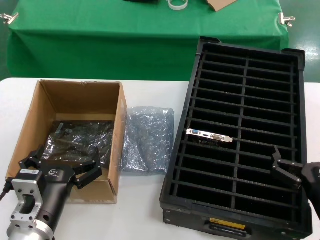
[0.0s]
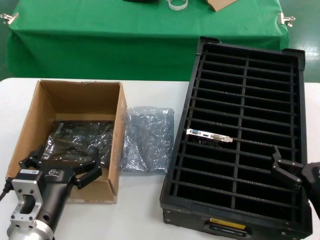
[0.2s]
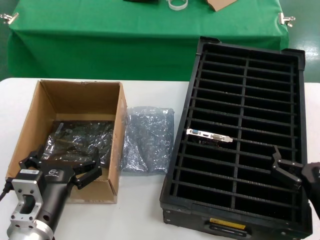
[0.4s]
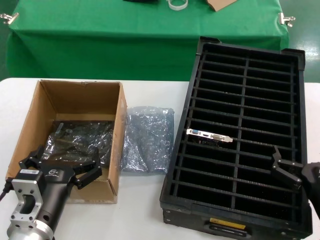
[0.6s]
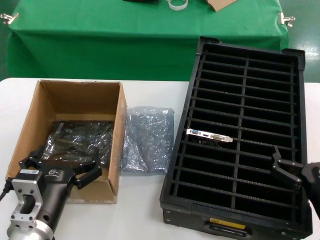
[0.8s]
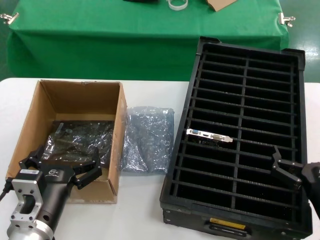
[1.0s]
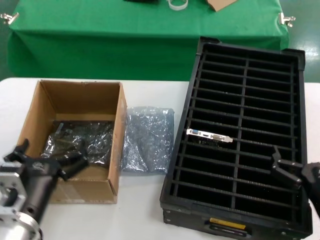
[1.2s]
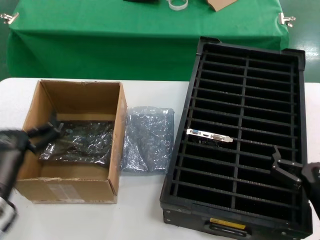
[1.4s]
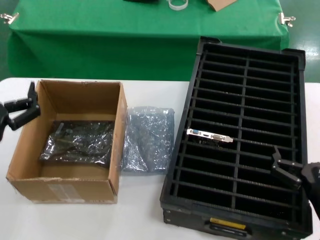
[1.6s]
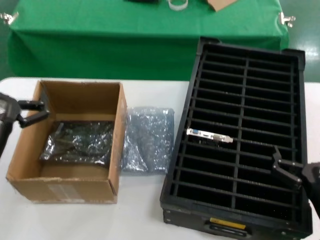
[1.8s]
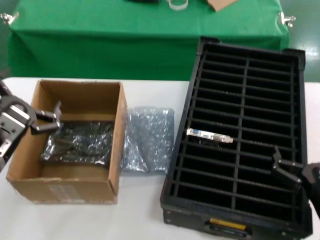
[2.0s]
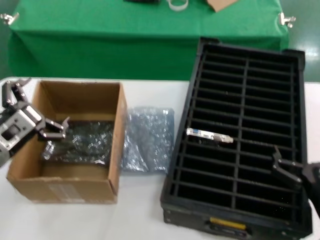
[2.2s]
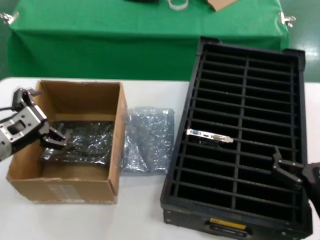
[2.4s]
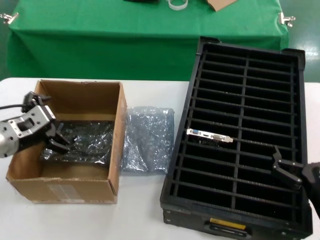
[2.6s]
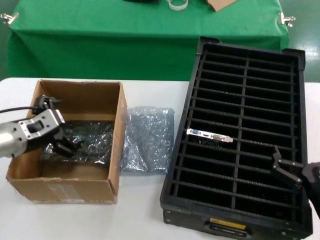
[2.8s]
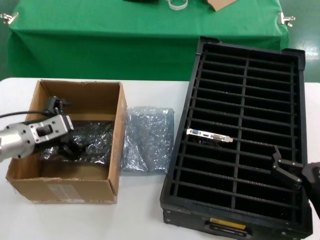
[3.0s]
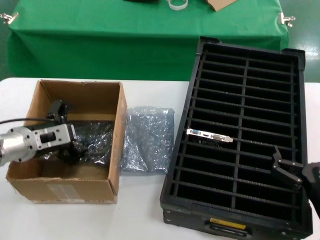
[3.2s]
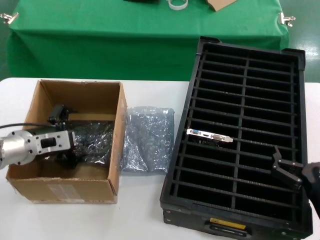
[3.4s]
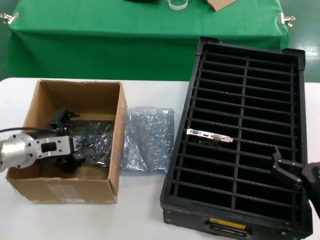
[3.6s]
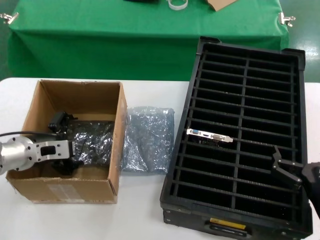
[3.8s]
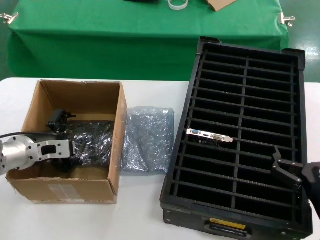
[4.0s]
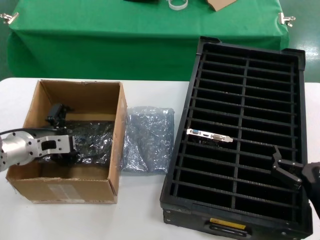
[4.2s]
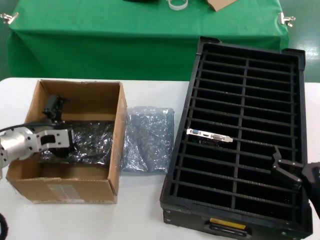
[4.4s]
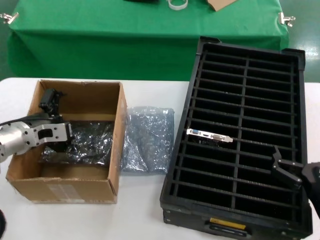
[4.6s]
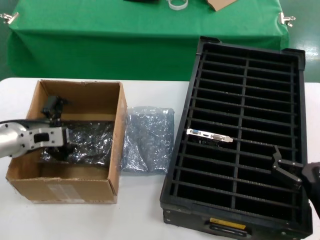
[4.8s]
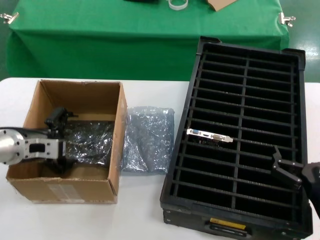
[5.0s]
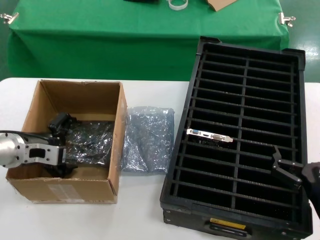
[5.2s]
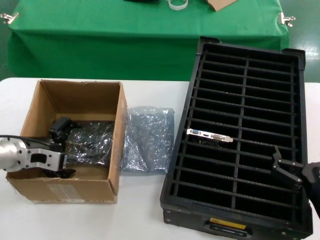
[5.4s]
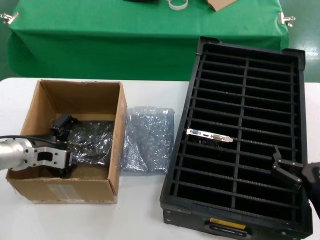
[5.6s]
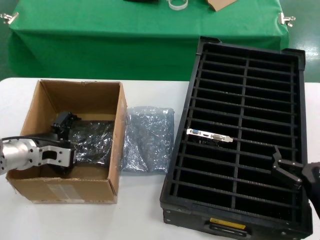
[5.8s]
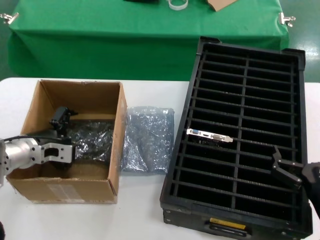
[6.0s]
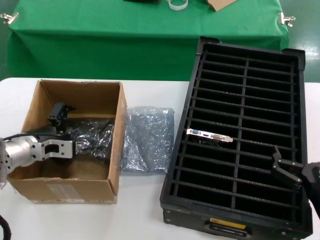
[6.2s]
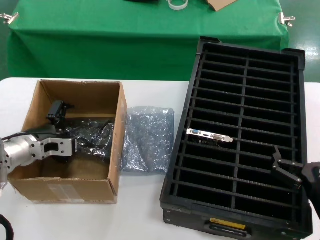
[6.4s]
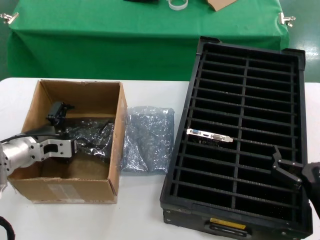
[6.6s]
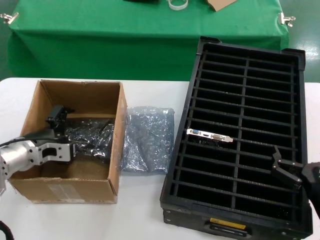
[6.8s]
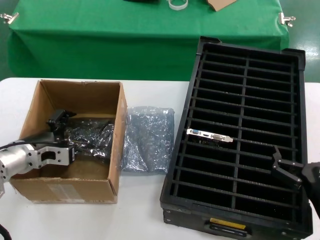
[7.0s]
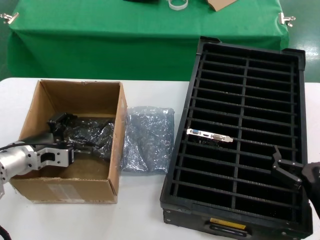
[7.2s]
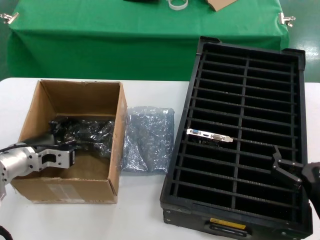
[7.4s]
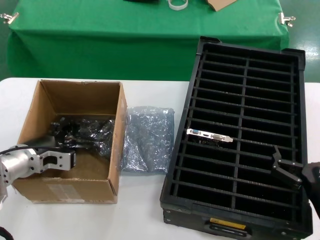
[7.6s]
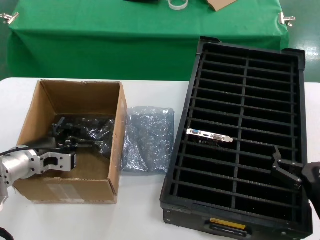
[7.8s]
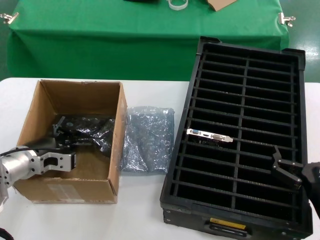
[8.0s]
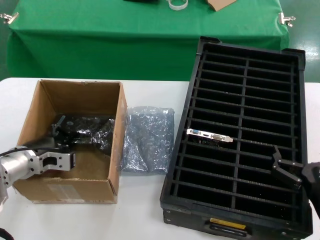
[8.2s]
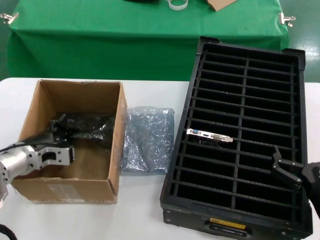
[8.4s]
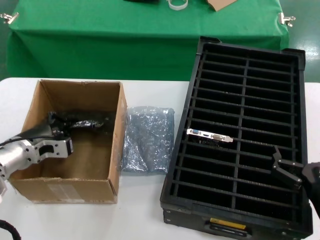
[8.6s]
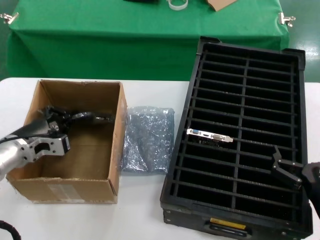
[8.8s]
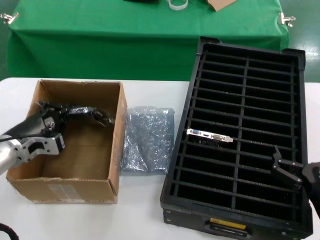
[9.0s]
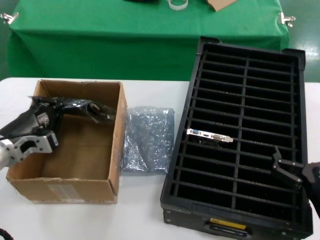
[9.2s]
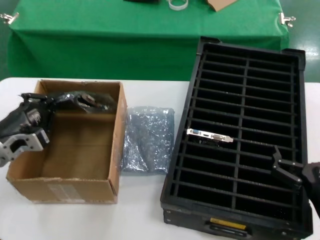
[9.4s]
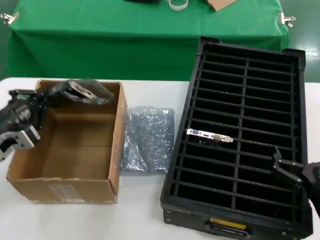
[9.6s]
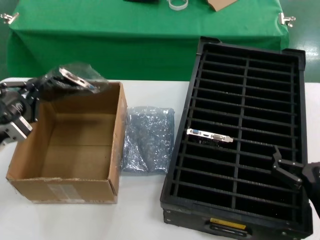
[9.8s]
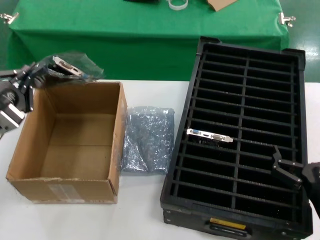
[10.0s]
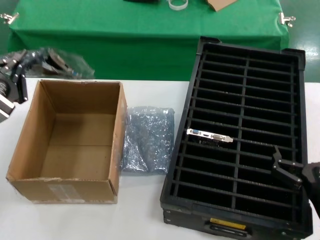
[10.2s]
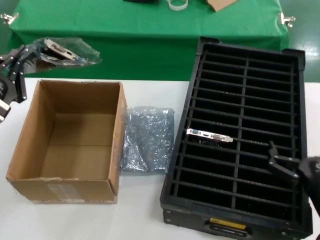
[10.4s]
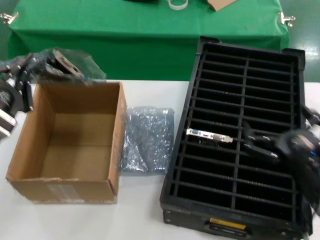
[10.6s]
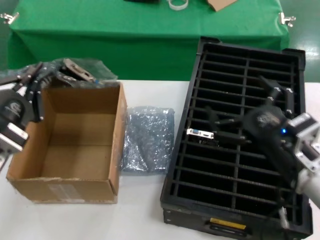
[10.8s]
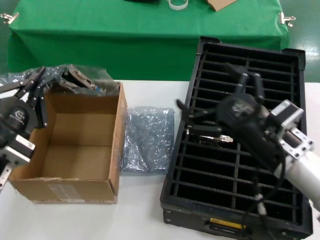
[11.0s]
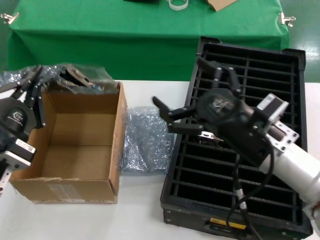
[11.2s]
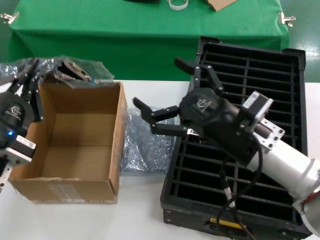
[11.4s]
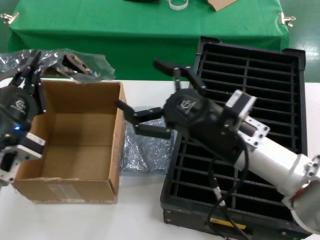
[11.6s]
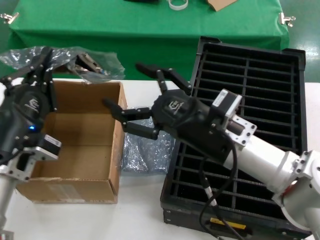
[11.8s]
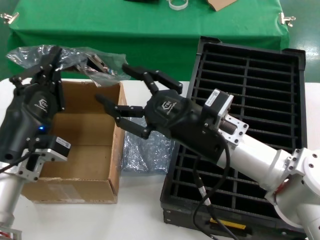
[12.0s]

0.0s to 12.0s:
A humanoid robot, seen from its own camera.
Task of the whole recording: take out graphics card from box remove packaging put into black container.
Step, 0.0s to 8.2s: Grasp the bag.
Step, 8.4s to 11.4s: Lift the bag.
0.0s to 1.6s: The left hand shifts some 10 cm upward and to the left.
1.6s to 3.0s: The left hand moves forward, approximately 20 cm.
3.0s to 4.4s: The hands move only a little.
4.4s to 9.0s: There are only small adjustments of the hands.
9.0s to 10.4s: The left hand moves backward and upward, roughly 15 cm.
10.4s to 12.0s: The right hand heads to the left, forward and upward, covering some 20 cm. Meanwhile the left hand travels to the right and downward by some 10 cm.

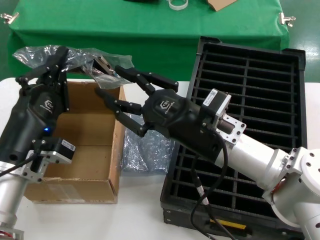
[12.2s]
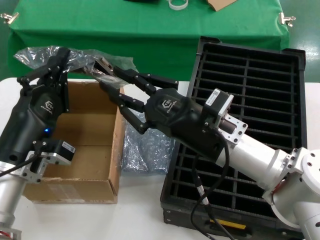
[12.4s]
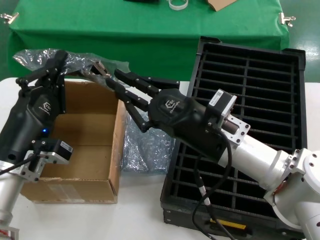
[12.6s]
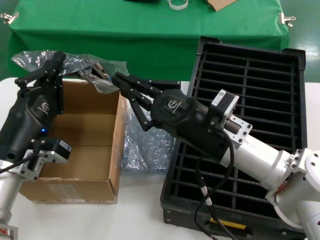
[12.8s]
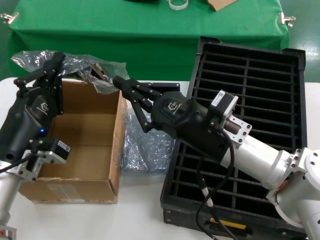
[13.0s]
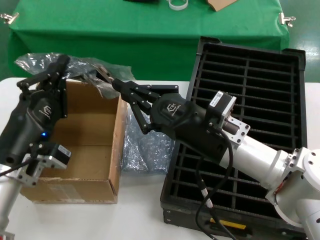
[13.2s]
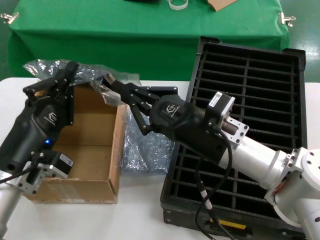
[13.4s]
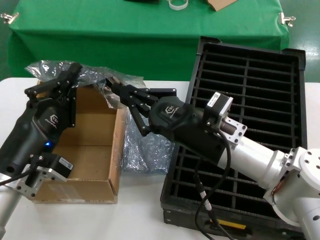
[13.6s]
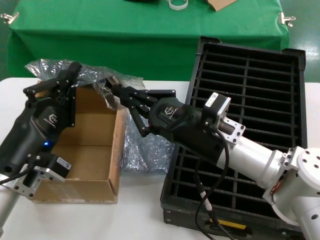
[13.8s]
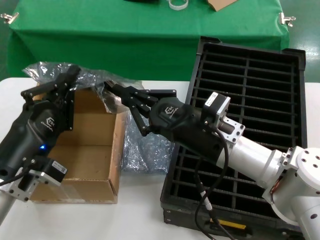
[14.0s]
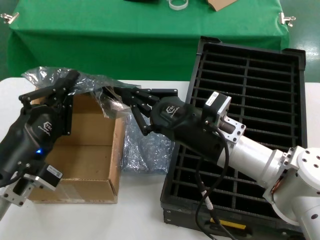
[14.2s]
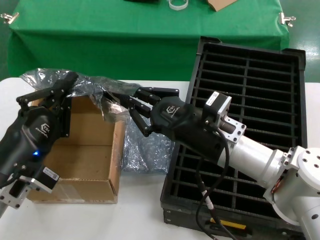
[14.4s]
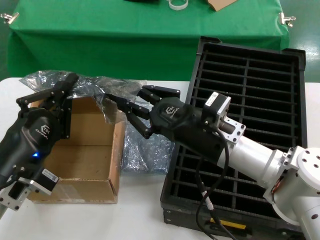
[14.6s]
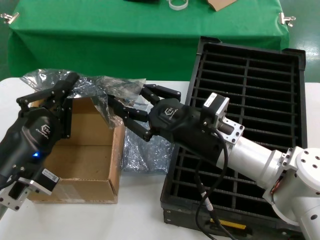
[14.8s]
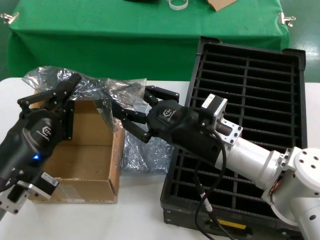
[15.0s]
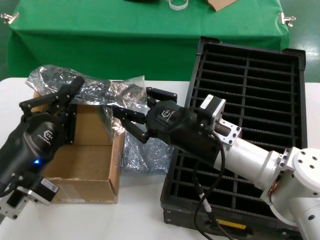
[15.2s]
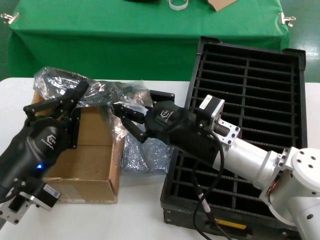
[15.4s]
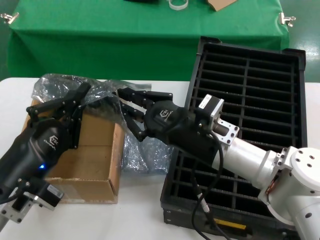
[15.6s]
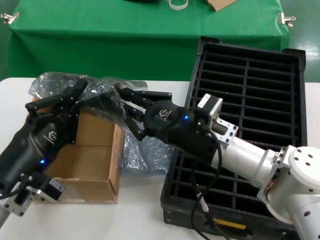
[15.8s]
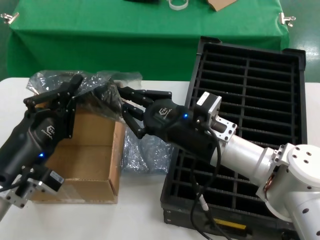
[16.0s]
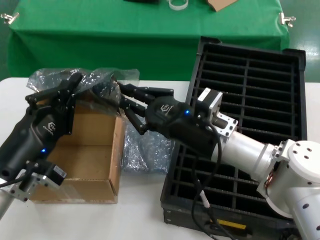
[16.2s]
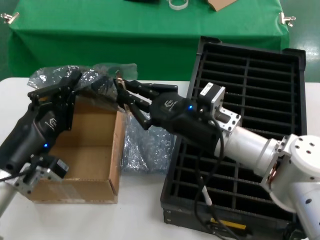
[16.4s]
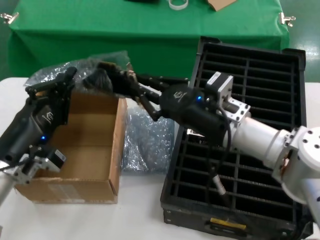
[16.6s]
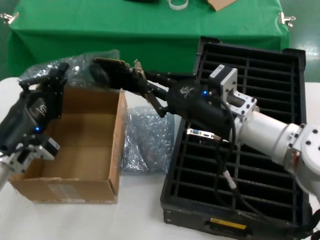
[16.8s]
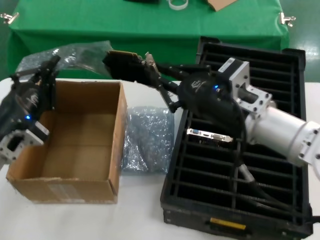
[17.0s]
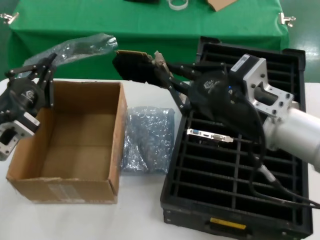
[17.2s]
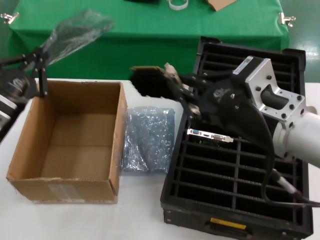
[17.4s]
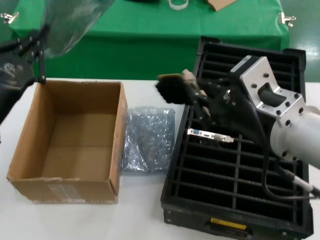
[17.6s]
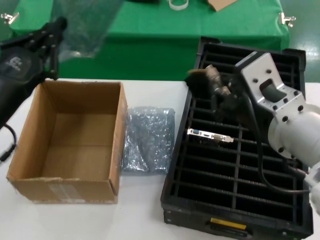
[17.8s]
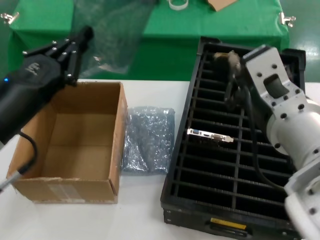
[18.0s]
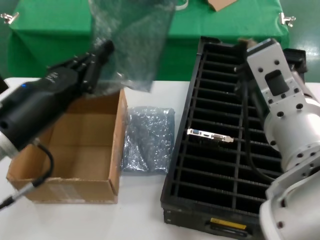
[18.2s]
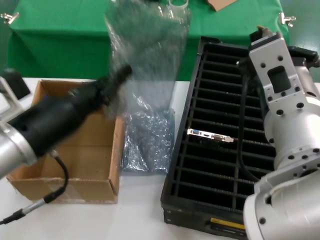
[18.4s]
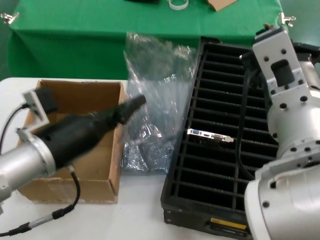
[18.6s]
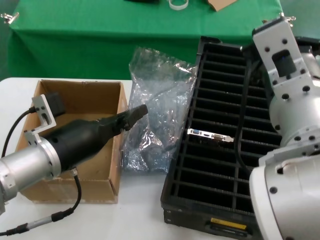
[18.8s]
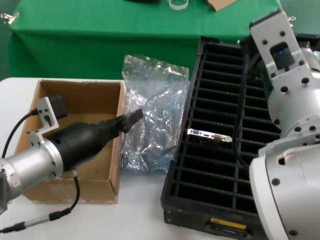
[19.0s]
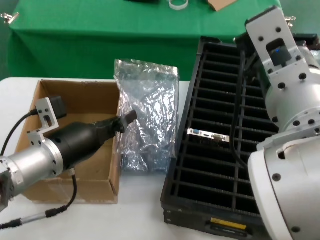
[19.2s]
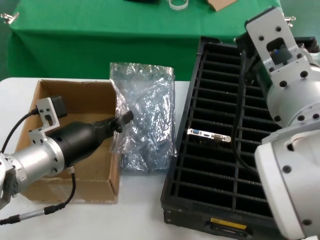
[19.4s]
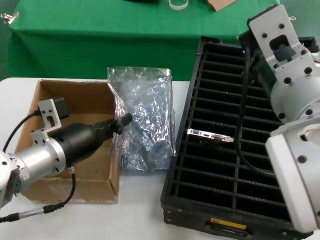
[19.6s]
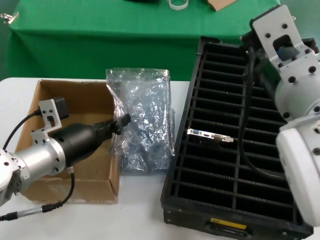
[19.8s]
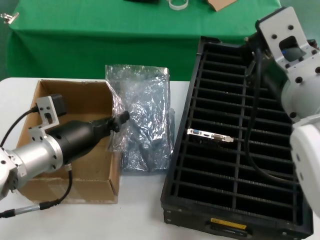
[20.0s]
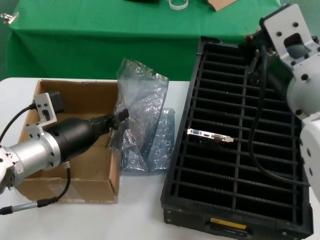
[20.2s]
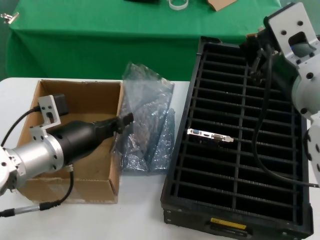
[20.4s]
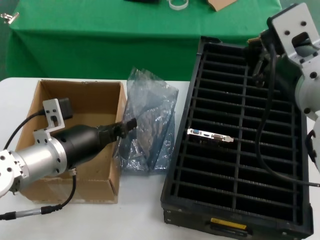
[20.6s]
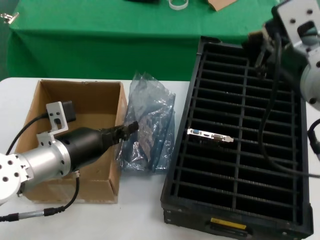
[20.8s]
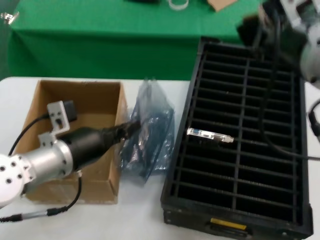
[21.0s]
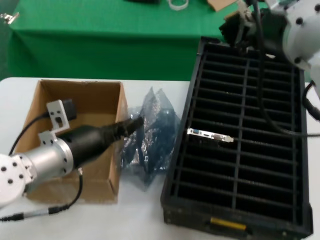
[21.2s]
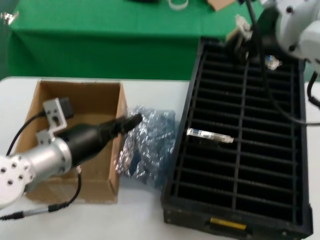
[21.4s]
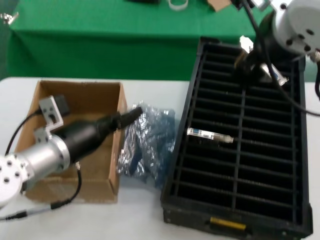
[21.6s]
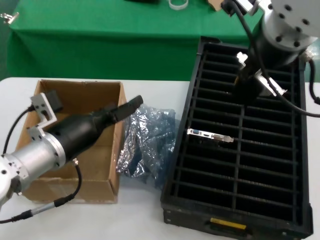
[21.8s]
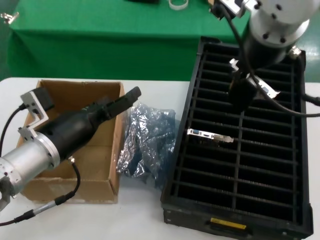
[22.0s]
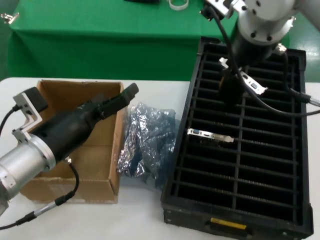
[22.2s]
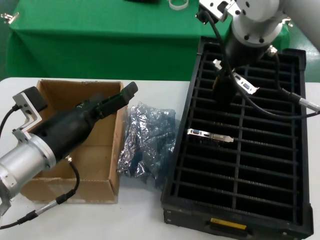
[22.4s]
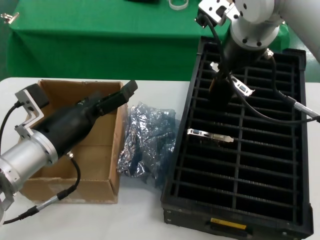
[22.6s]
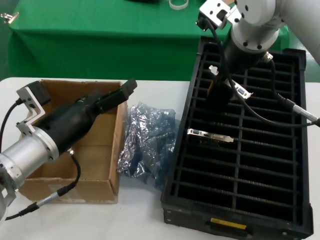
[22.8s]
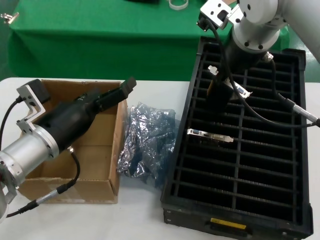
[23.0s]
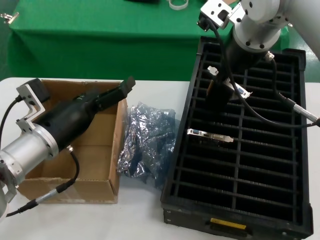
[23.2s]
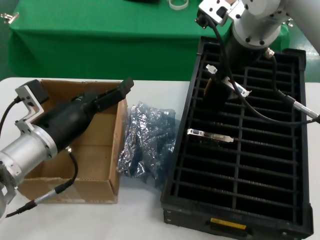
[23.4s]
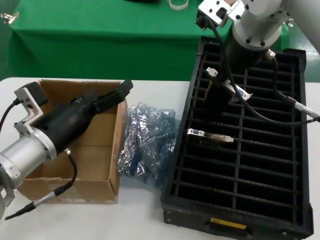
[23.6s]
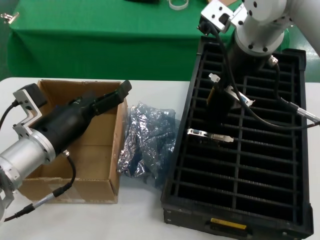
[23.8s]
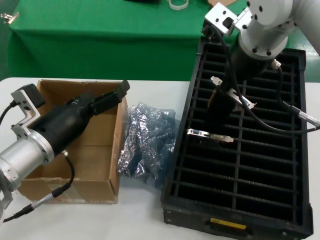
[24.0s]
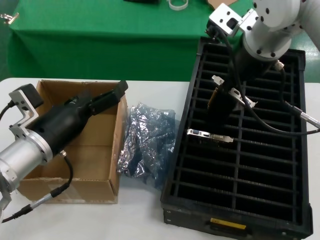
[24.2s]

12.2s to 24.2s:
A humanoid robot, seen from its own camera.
Task of the whole recording: take out graphics card from box remove packaging put into black container.
Step, 12.2s to 17.2s: Take out the hard disk of the bag.
Step, 17.4s to 21.4s: Place the down the bag.
12.2s to 15.2s: The hands make only small movements.
15.2s to 16.6s: The left hand shifts approximately 10 cm forward.
16.6s to 18.2s: The right hand moves backward and upward, about 20 cm. Meanwhile the left hand is displaced upward by approximately 10 cm.
18.2s to 19.8s: The right hand heads upward, covering roughly 5 cm; the left hand is displaced forward and downward by about 10 cm.
19.8s to 21.2s: The right hand travels upward by approximately 5 cm.
21.2s to 22.6s: The right hand goes roughly 20 cm forward.
22.6s to 24.2s: There are only small adjustments of the hands.
